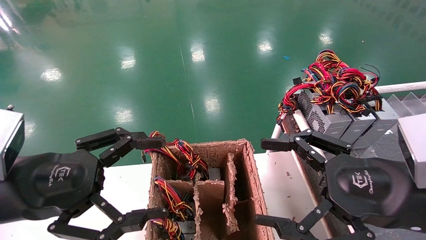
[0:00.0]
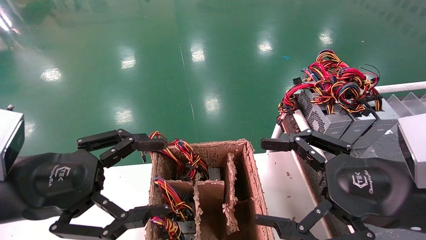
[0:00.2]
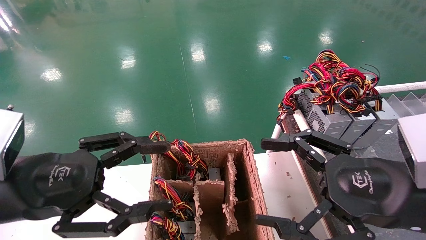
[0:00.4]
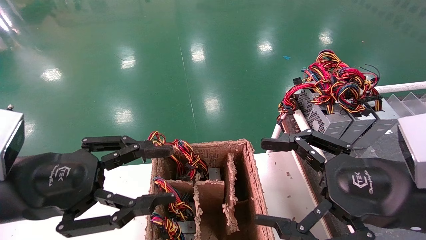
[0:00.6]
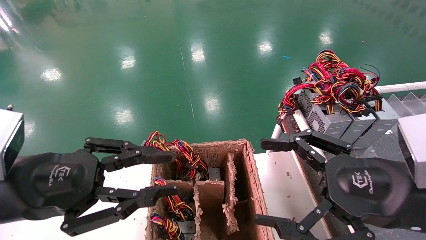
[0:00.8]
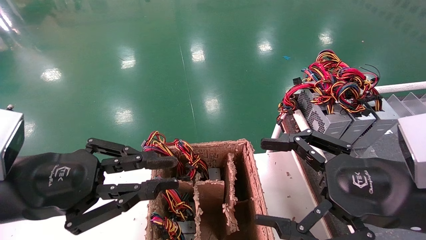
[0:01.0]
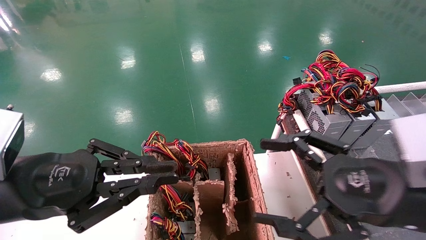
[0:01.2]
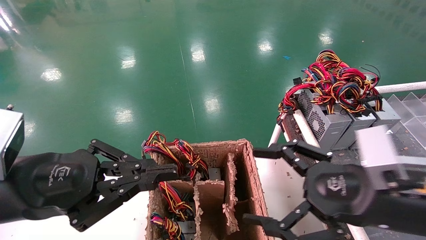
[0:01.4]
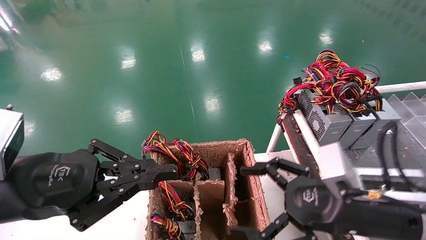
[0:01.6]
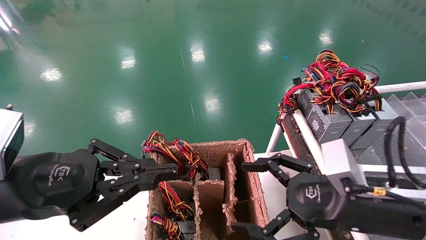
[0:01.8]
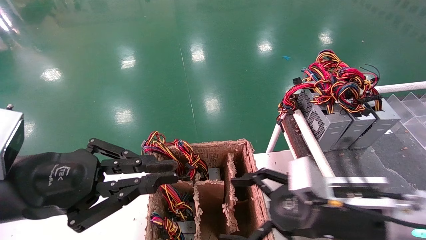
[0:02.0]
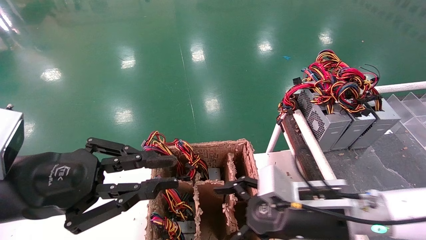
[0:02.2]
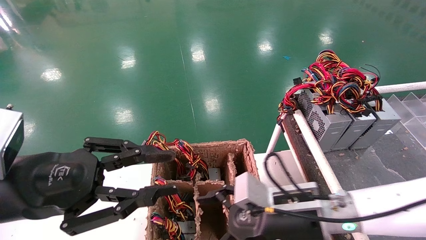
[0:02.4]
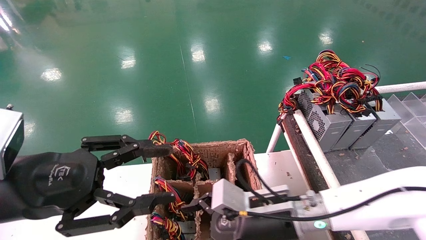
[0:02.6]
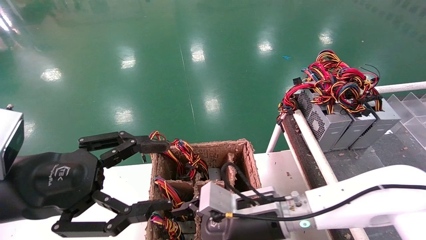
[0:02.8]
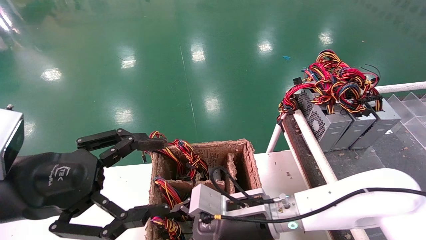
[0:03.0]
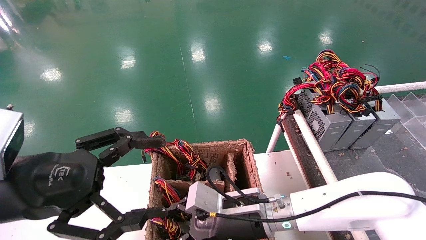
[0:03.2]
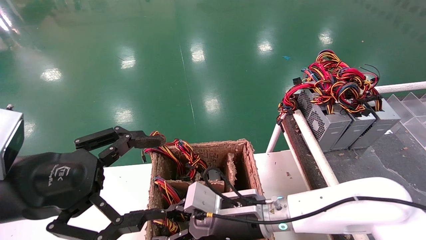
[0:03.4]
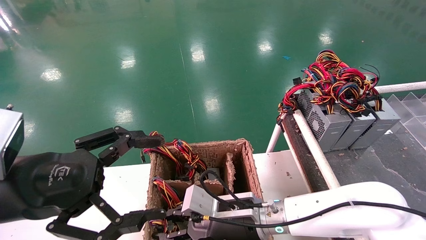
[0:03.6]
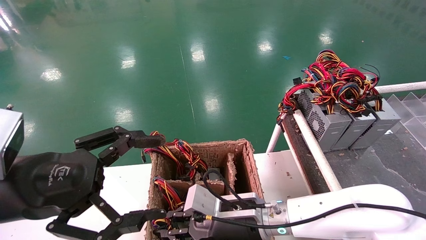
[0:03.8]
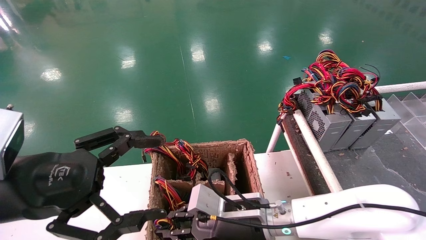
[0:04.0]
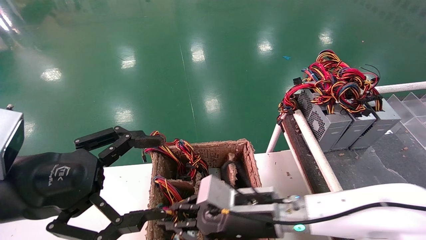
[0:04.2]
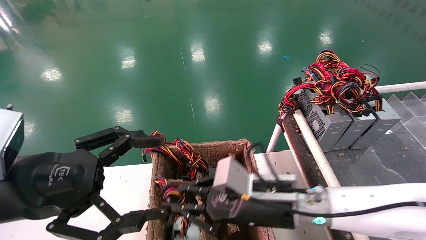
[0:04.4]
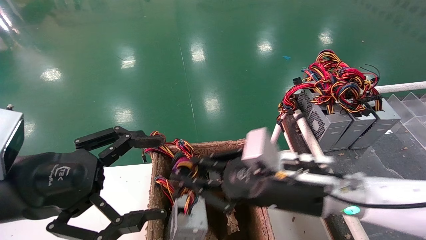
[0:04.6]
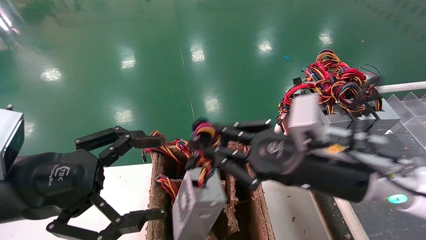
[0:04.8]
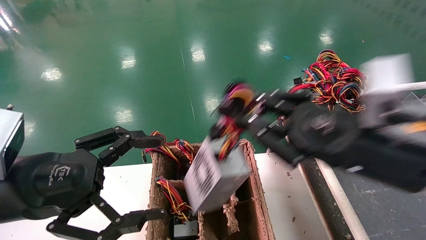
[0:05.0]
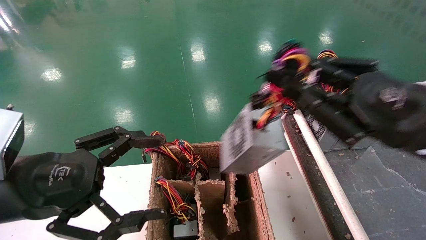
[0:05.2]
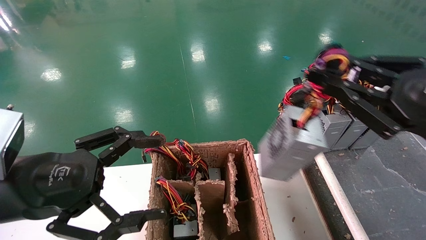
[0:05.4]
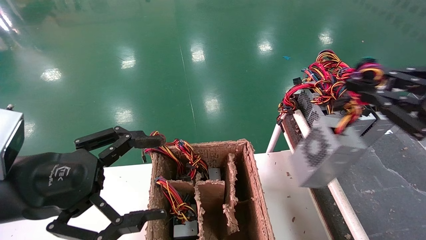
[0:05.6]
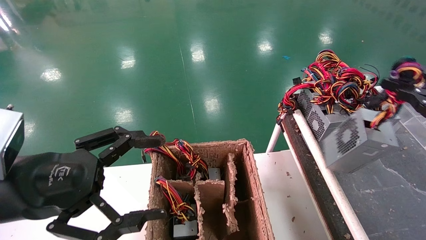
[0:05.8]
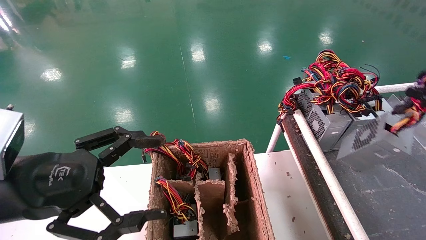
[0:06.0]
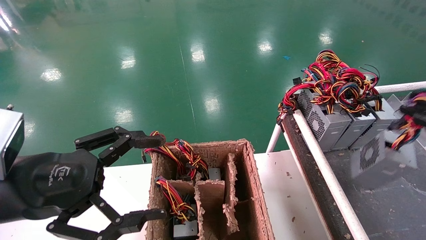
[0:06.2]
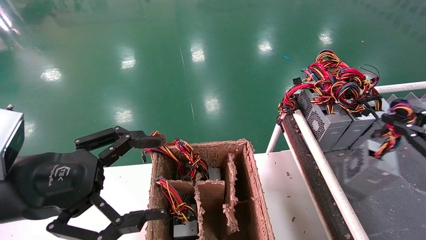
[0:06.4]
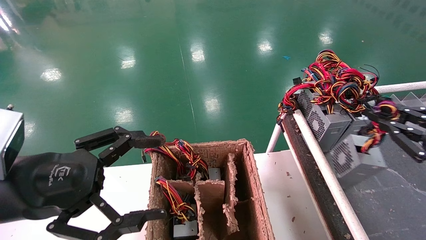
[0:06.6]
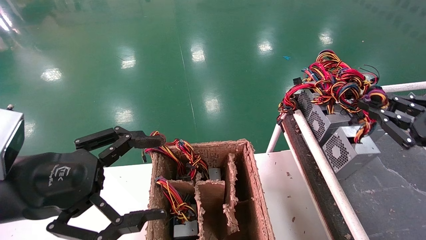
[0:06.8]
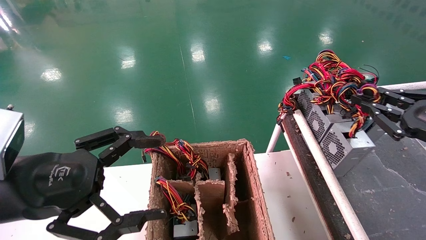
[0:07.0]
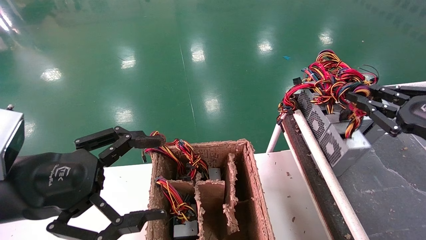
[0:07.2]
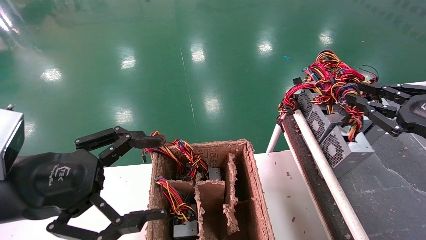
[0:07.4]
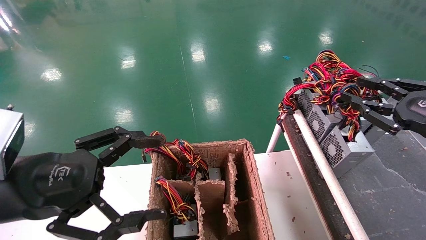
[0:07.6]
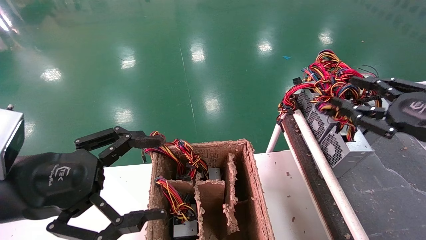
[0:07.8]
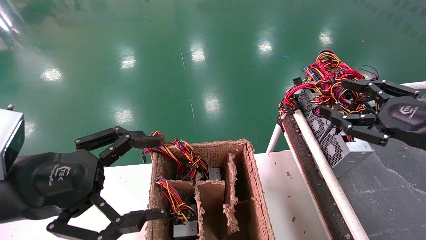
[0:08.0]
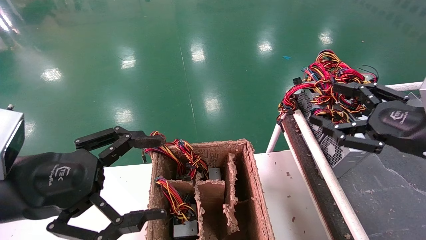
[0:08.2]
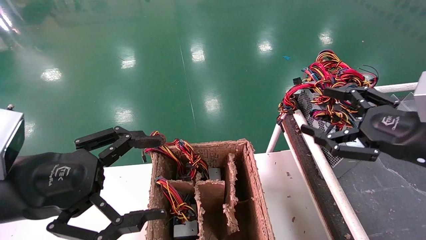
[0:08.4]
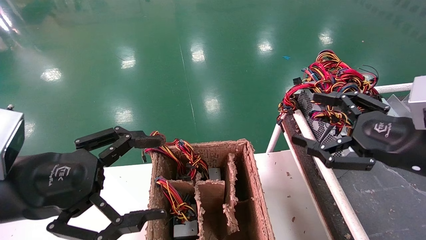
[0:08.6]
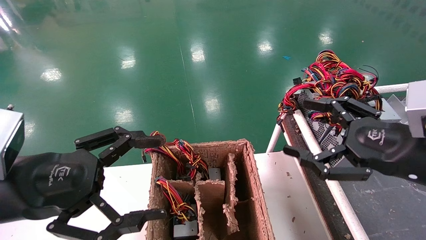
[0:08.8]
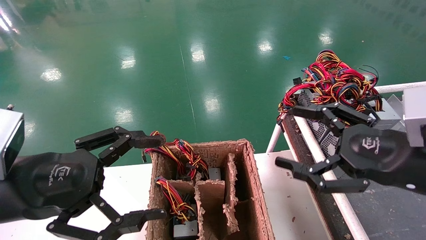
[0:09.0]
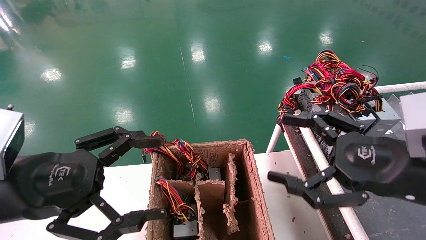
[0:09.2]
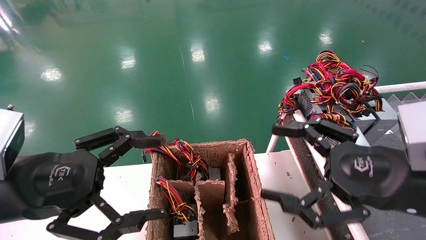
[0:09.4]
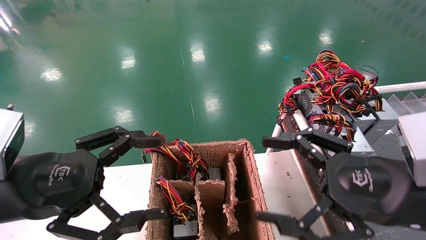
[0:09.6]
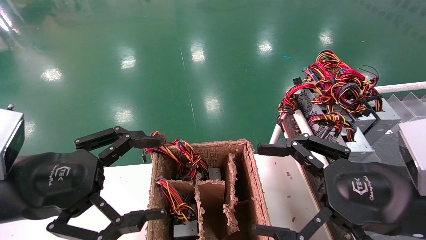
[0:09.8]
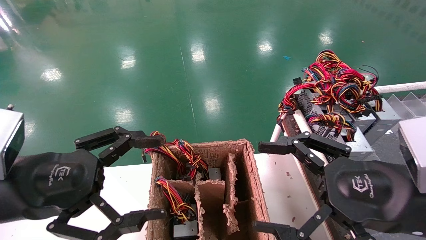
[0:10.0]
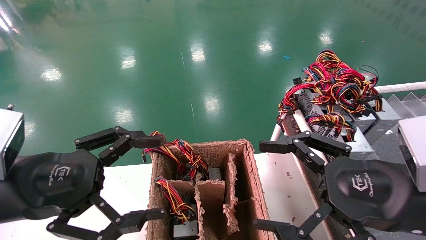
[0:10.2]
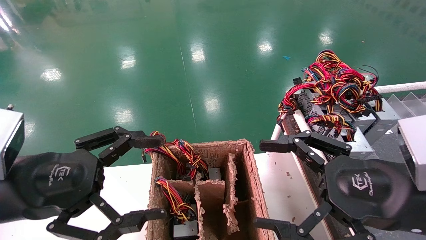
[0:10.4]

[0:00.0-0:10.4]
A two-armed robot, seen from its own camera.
Step, 0:02.0 to 0:04.4: Grab and lift the power supply from the large box.
Step, 0:04.6 to 0:08.6: Place the power supply on the operating table.
0:00.0 to 0:01.4: The left gripper closes.
0:01.4 to 0:03.0: The left gripper opens its fingers. Meanwhile the right gripper goes approximately 20 cm to the left, downward and forward.
0:03.0 to 0:04.4: The right gripper shifts by approximately 5 cm, and closes its fingers.
0:04.4 to 0:06.0: The right gripper heads to the right, covering about 35 cm.
0:06.0 to 0:07.4: The right gripper moves forward, approximately 5 cm.
0:07.4 to 0:09.0: The right gripper moves to the left, approximately 10 cm, and opens up.
0:09.0 to 0:10.4: The grippers make only small movements.
